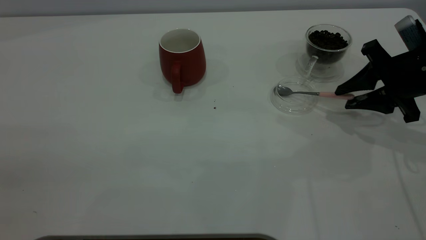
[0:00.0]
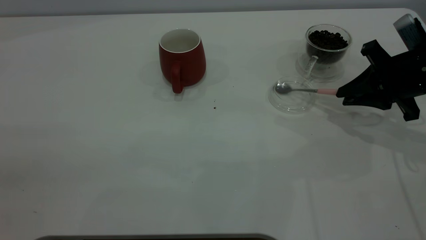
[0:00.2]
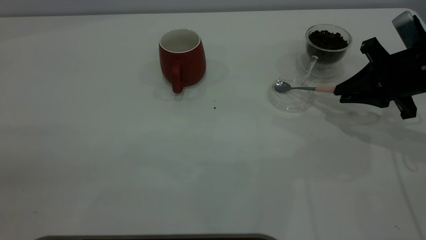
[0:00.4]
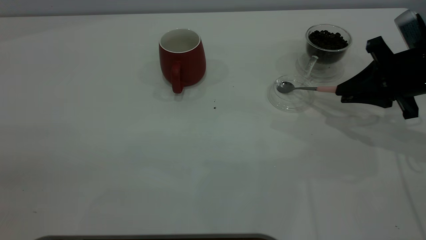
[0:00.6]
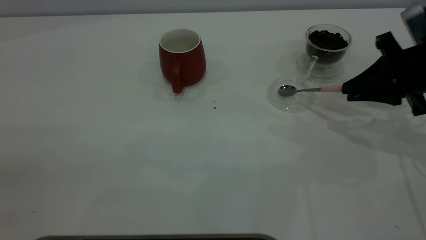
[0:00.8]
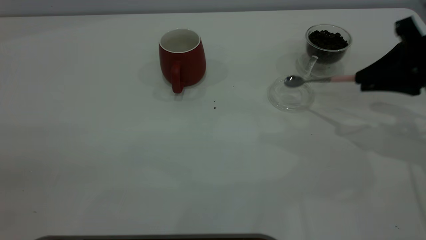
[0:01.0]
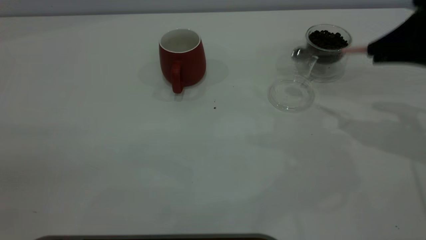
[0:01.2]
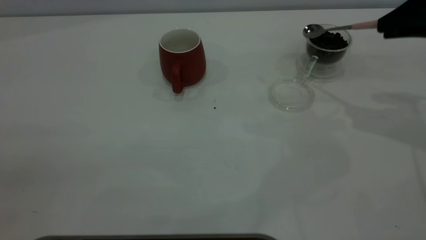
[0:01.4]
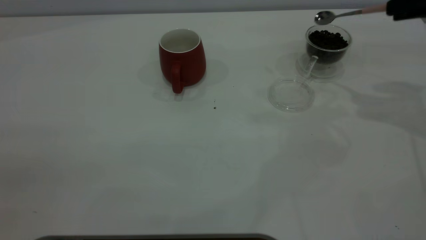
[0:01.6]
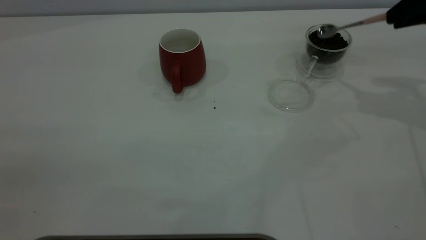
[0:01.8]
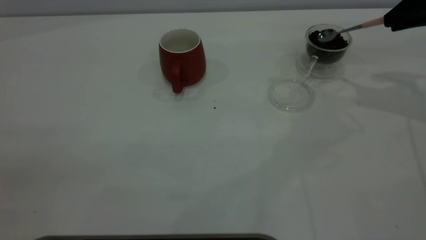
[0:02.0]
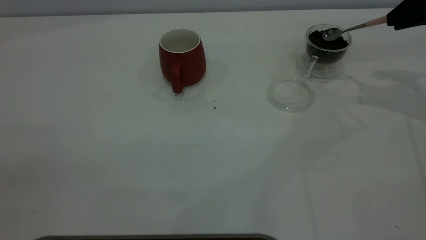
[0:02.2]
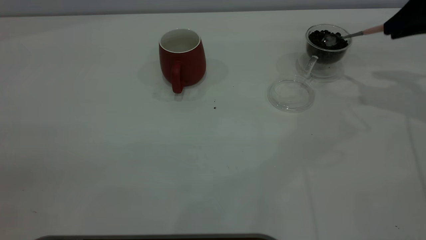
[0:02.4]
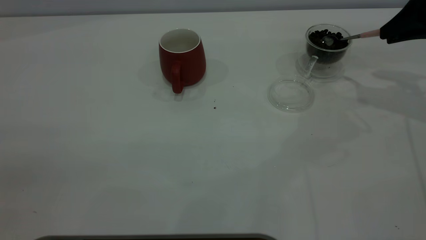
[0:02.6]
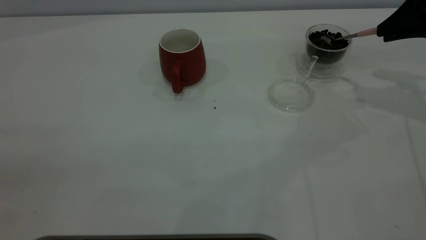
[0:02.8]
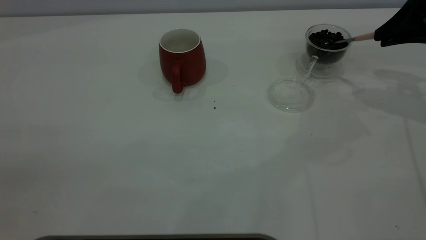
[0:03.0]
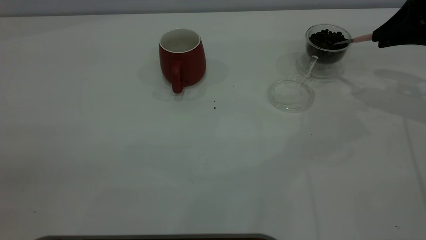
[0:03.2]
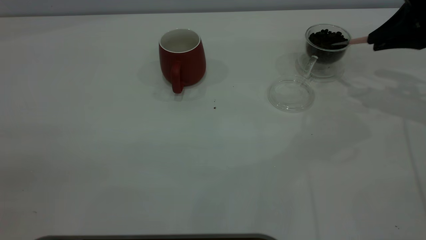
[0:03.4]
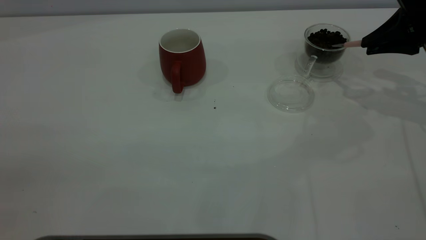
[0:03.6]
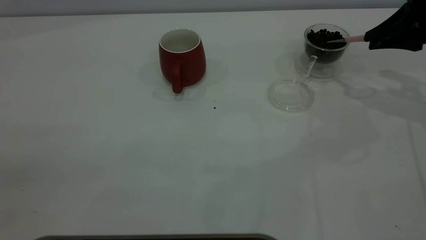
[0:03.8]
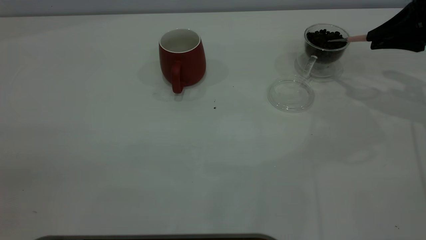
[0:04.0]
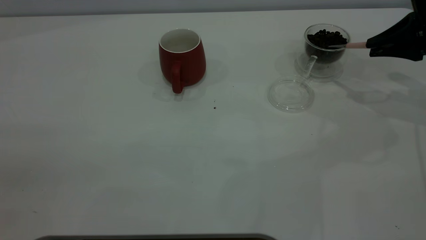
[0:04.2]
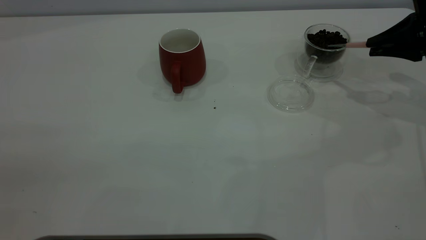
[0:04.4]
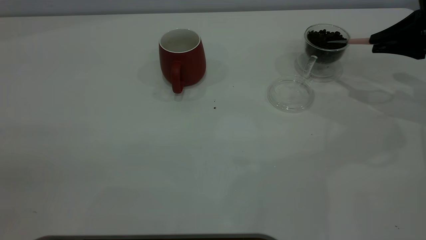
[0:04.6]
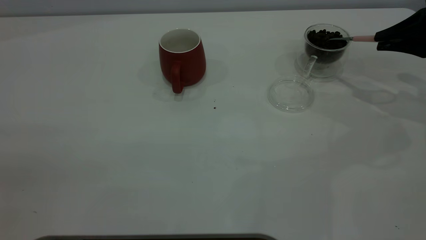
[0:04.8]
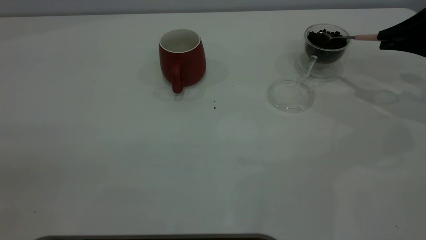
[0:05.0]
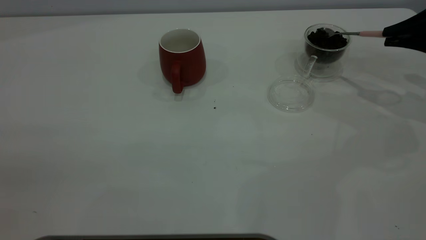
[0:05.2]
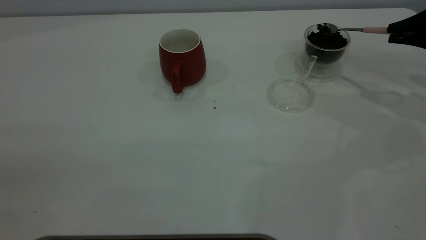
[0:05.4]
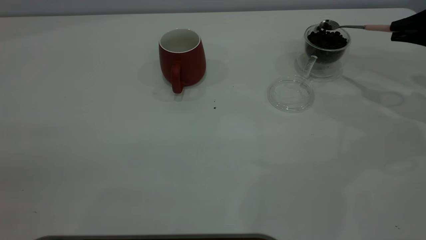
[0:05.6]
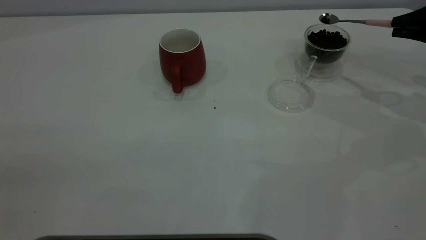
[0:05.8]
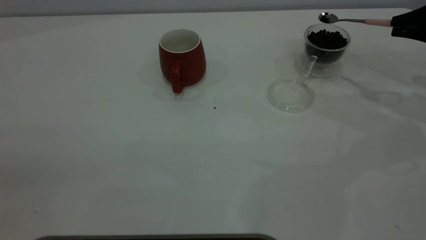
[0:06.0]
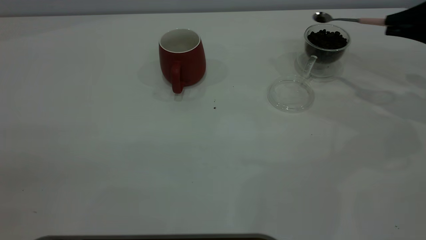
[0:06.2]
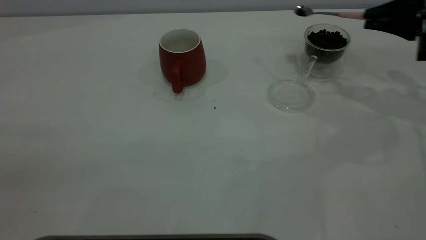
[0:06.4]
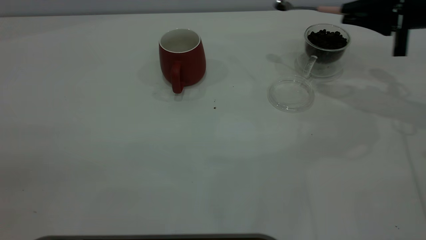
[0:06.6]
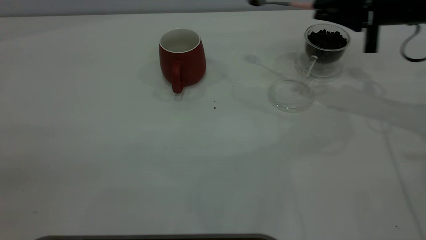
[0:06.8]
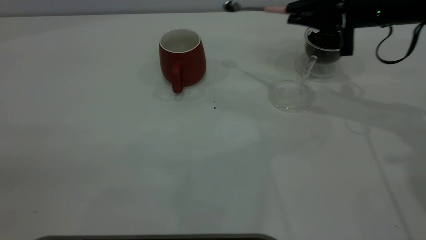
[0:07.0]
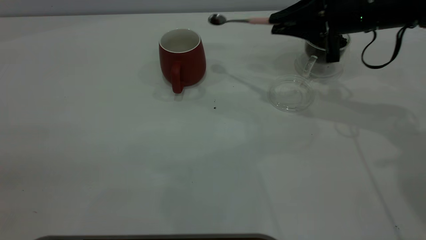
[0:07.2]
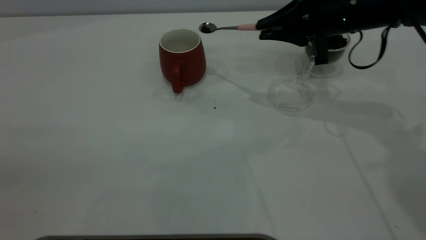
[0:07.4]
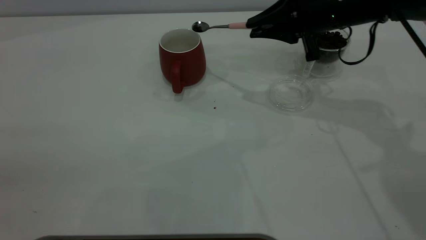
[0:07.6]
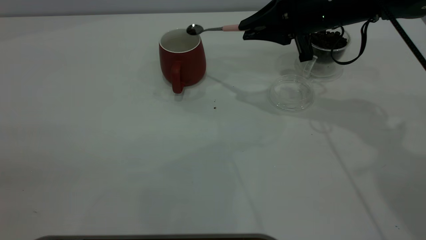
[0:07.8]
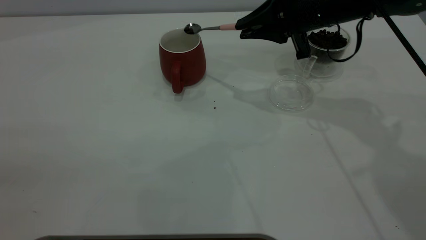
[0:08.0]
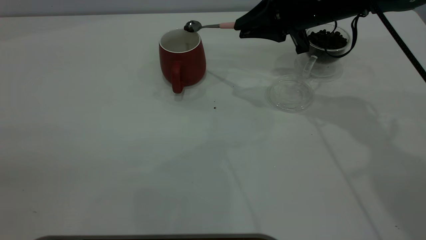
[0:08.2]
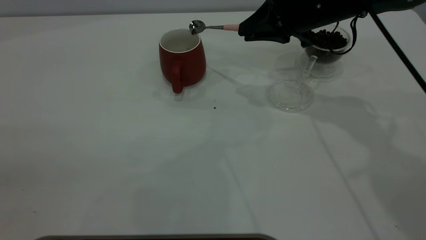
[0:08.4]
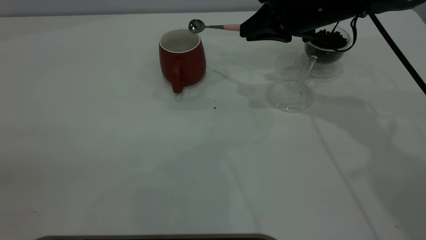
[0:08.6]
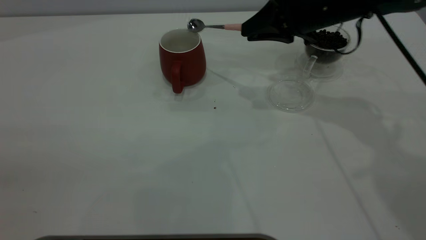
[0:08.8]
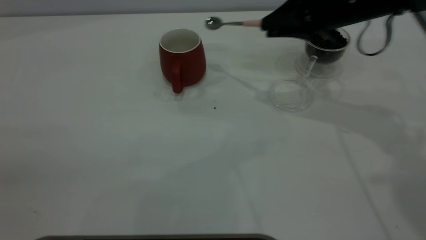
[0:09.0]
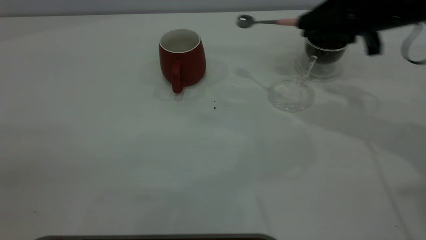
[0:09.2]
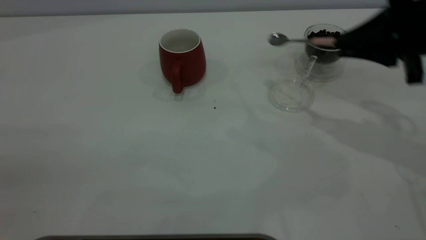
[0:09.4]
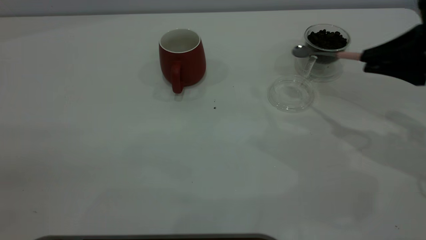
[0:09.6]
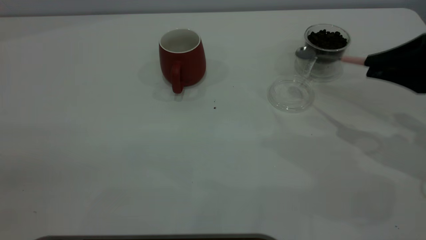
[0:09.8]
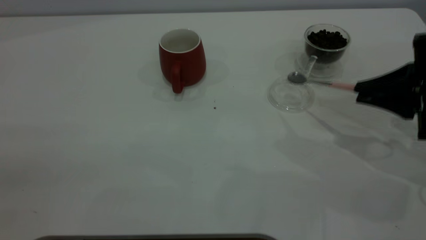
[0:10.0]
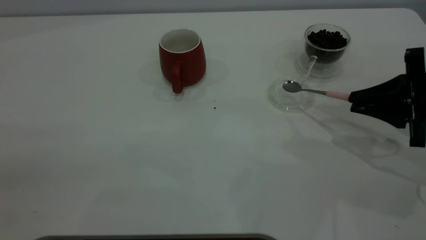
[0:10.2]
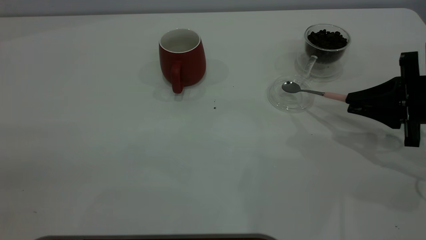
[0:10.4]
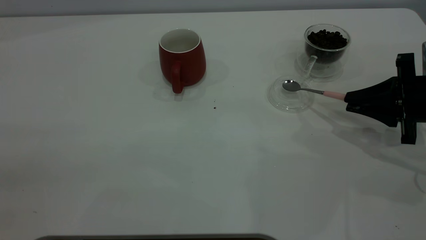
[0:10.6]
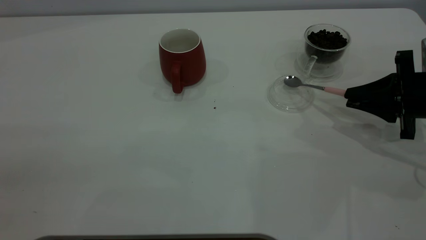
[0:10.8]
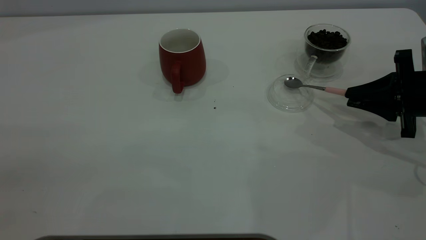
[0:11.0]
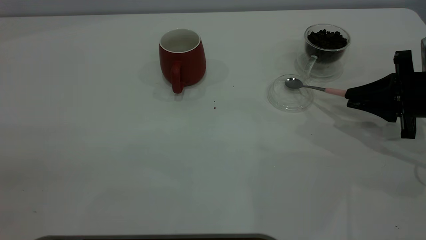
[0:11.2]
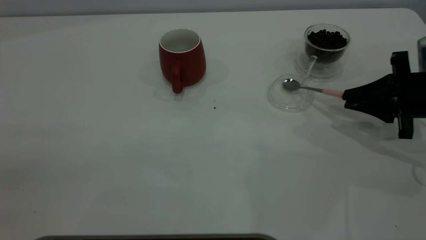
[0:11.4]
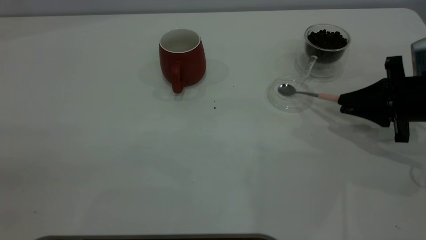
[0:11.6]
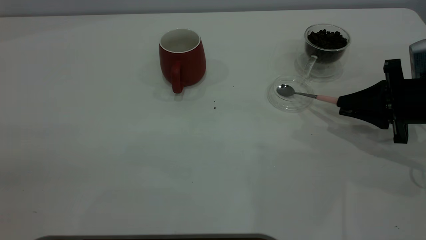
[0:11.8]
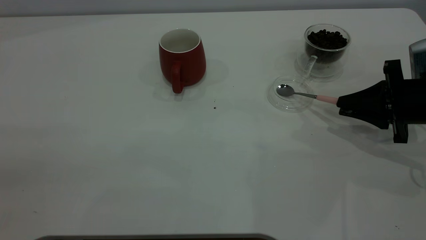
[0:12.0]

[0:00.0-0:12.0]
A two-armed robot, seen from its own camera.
Task of the whole recording: the left gripper place the red cup in the center of the table, the right gripper take the pink spoon from the cup lid and scoop out the coffee beans from the coffee cup and put them into the red cup, the right gripper put the spoon back into the cup lid.
Step, 0:01.2 to 0:08.8: Scoop a spoonful of beans into the cup.
0:00.0 to 0:01.6: The right gripper heads upward, covering some 15 cm.
0:01.6 to 0:03.0: The right gripper goes approximately 5 cm downward.
0:04.4 to 0:06.0: There are only small adjustments of the grippers.
0:06.0 to 0:07.6: The right gripper travels to the left by some 20 cm.
0:09.0 to 0:10.4: The right gripper moves to the right, downward and backward, some 20 cm.
0:10.4 to 0:12.0: The grippers stay close to where they were, moving slightly.

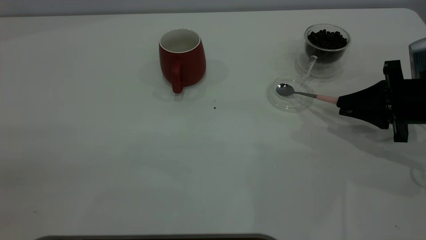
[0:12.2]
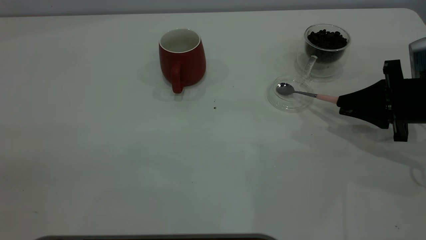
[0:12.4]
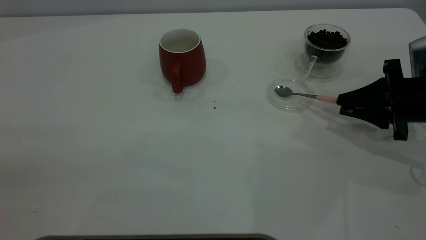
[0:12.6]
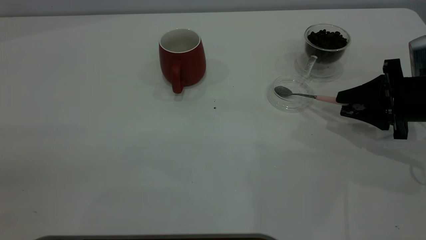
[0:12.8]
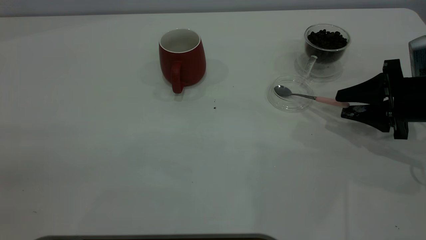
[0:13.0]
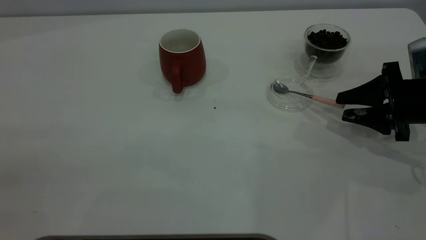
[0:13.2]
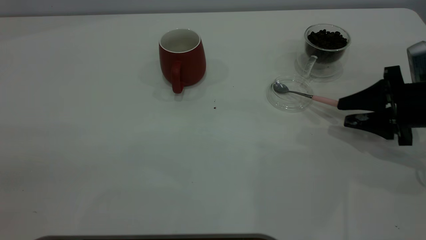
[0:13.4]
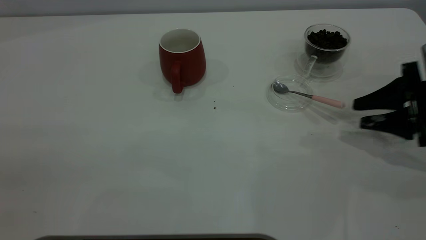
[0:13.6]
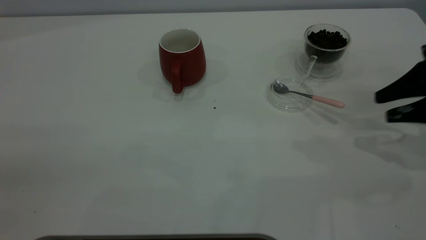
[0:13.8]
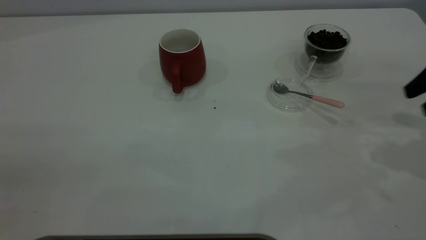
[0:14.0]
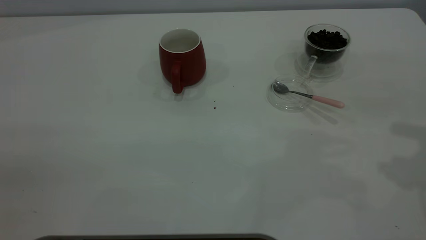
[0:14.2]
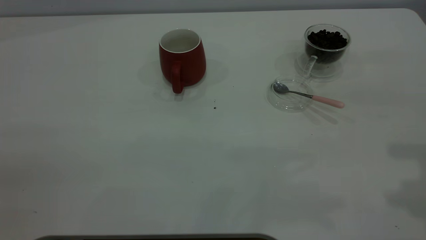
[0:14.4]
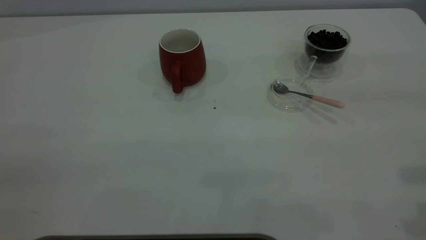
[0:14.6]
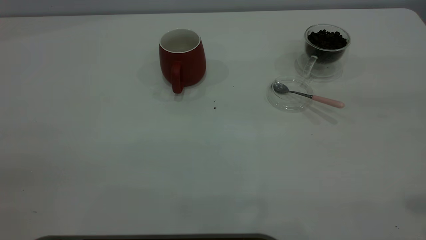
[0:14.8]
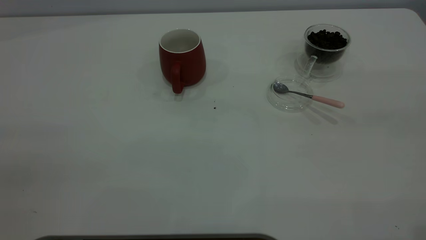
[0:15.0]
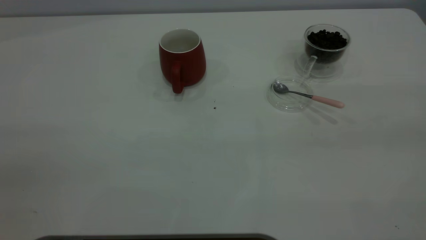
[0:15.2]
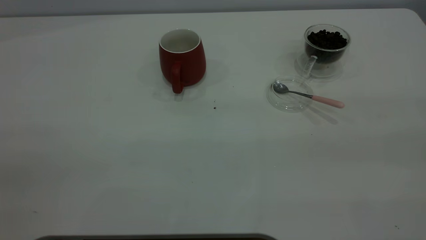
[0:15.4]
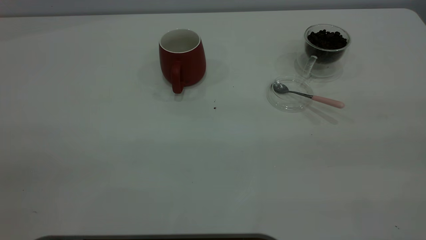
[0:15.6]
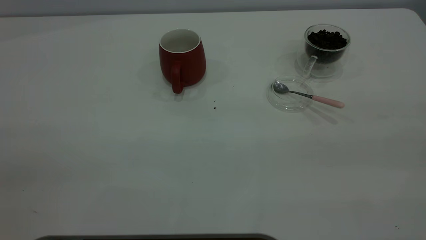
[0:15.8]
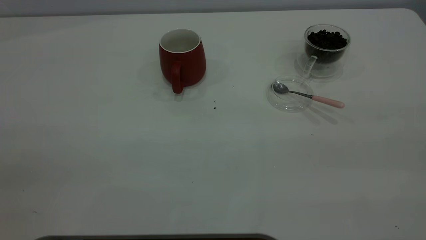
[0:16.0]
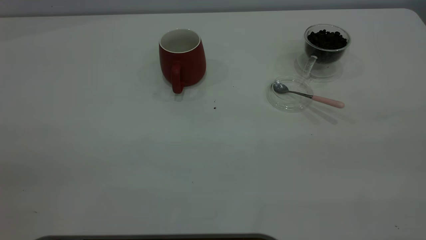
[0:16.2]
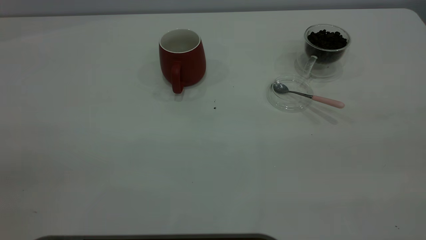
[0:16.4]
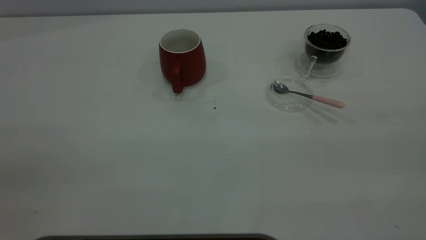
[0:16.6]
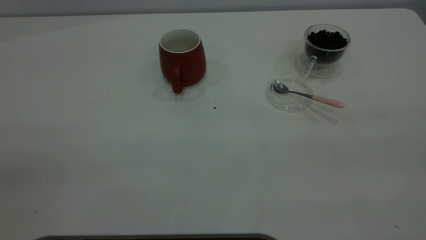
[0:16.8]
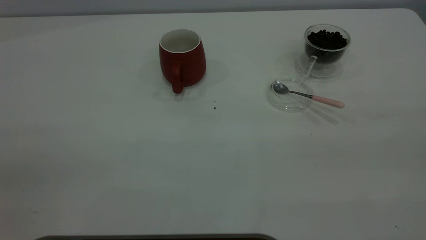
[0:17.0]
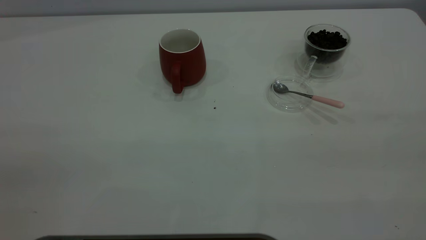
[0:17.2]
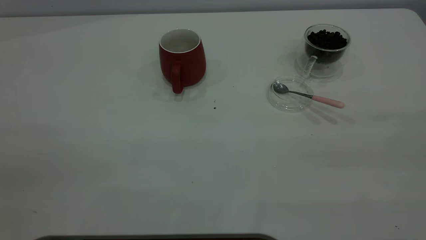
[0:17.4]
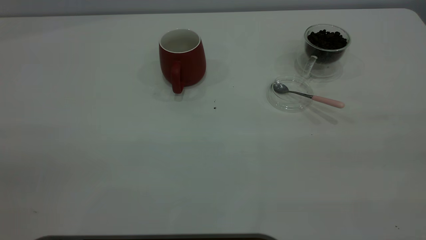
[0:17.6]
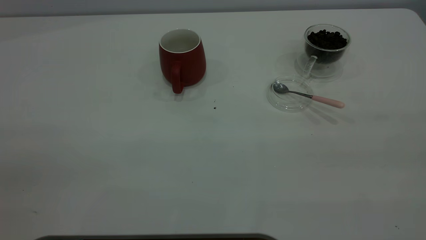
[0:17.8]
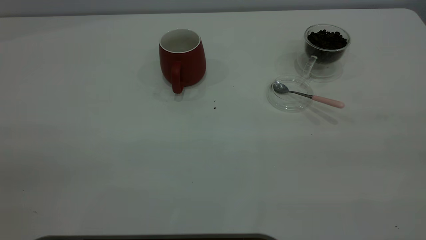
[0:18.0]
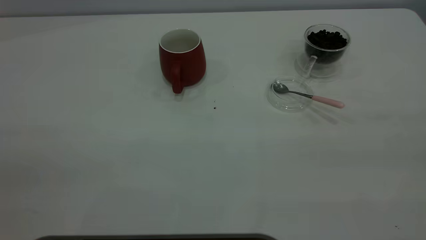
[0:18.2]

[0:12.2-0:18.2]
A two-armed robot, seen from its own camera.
Task of the whole recording: the left gripper place the red cup in the center of the table, the right gripper take the pink spoon from the cup lid and scoop out the coffee beans from the coffee cup and put them into the red cup, the right gripper put the spoon back into the cup lid.
0:12.2 to 0:13.8: The right gripper travels upward by some 10 cm, and opens its fingers.
0:13.8 to 0:15.2: The right gripper heads backward and upward, covering some 35 cm.
